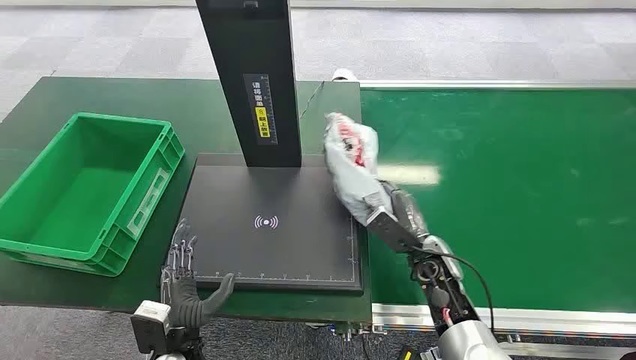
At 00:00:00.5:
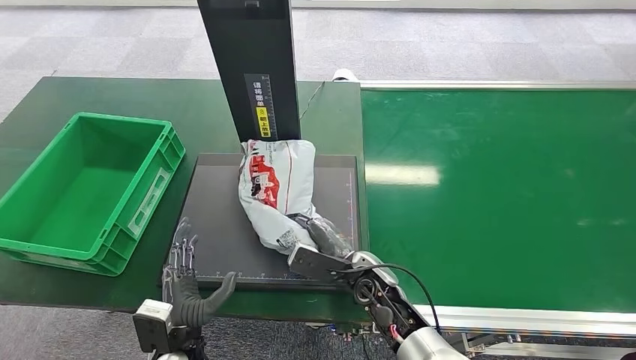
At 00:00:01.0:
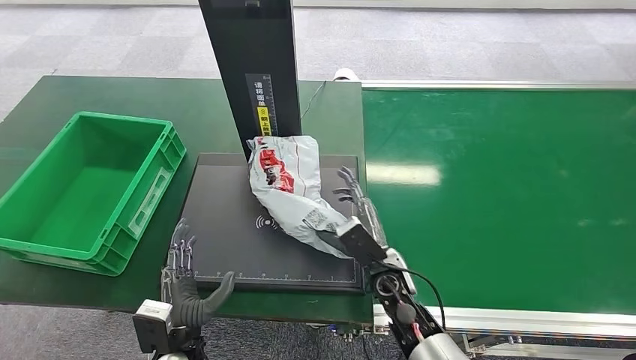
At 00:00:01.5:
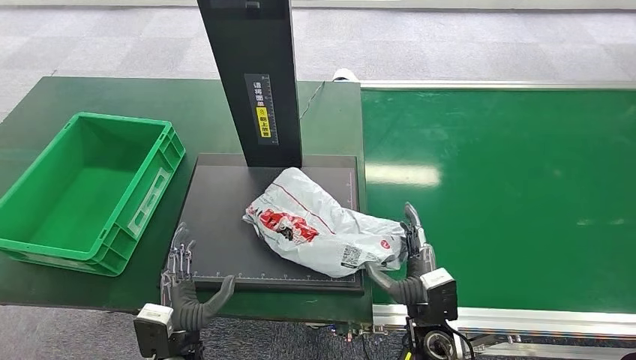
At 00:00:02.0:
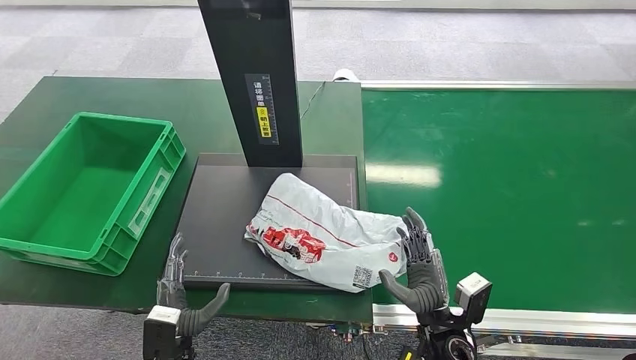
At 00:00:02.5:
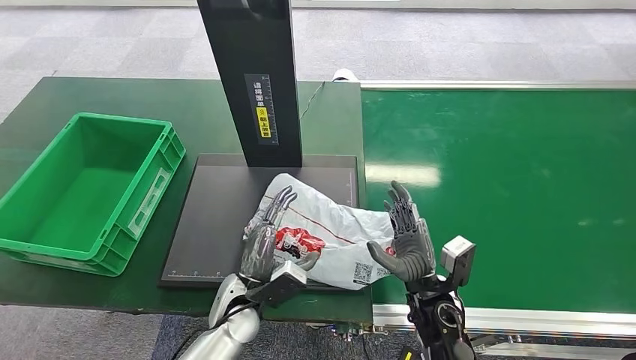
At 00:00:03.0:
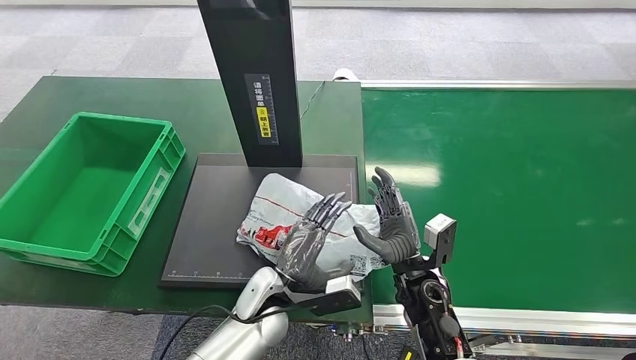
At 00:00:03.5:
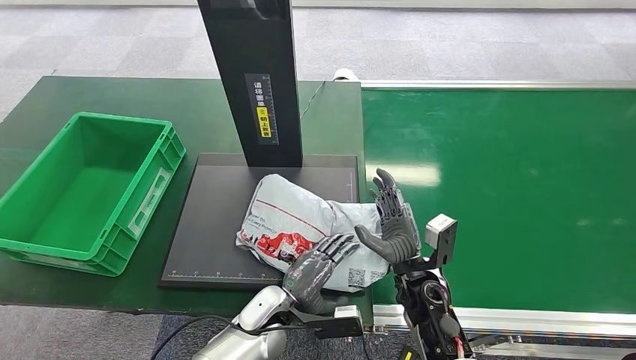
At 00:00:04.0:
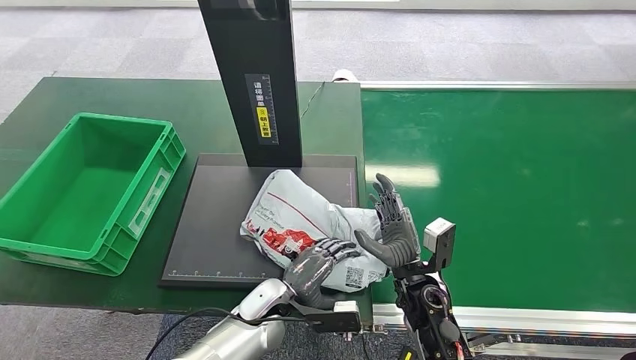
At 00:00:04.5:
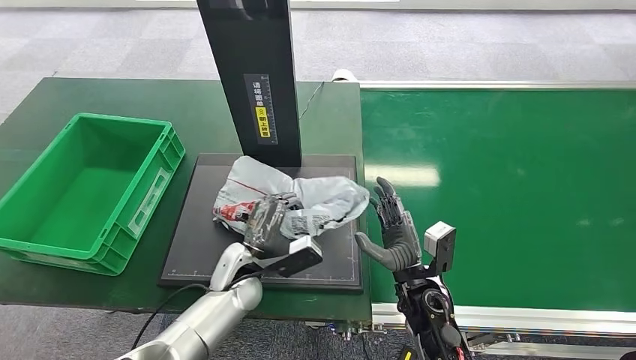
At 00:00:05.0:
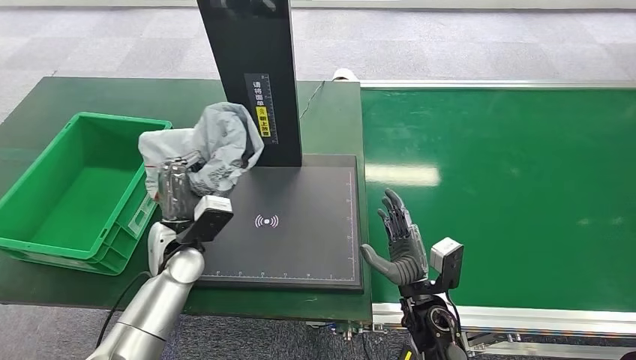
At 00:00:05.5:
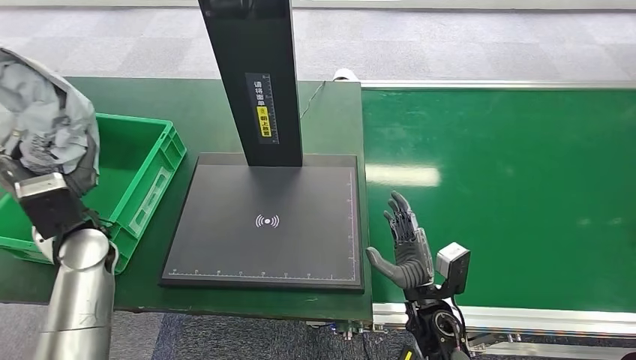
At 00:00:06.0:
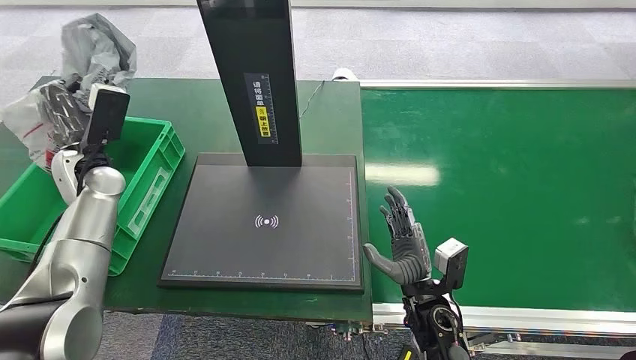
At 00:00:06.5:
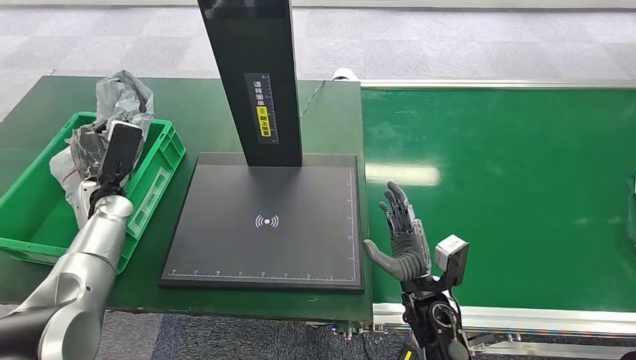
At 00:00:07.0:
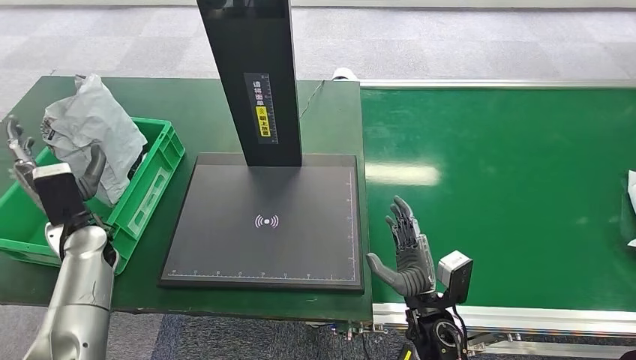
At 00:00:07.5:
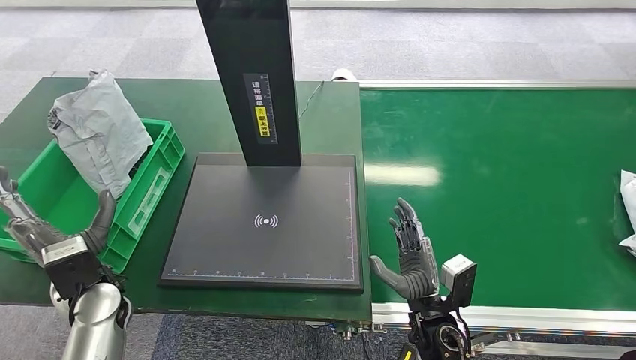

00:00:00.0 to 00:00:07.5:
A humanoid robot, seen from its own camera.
Task of the whole recording: Weigh the package on the weighing device and place it in the left basket.
00:00:02.0 to 00:00:04.0: The right hand heads forward, covering roughly 10 cm, while the left hand heads to the right and forward, covering roughly 15 cm.
00:00:04.0 to 00:00:05.5: The left hand travels to the left and upward by some 30 cm.
00:00:05.5 to 00:00:07.5: The left hand heads downward and backward, covering approximately 10 cm.

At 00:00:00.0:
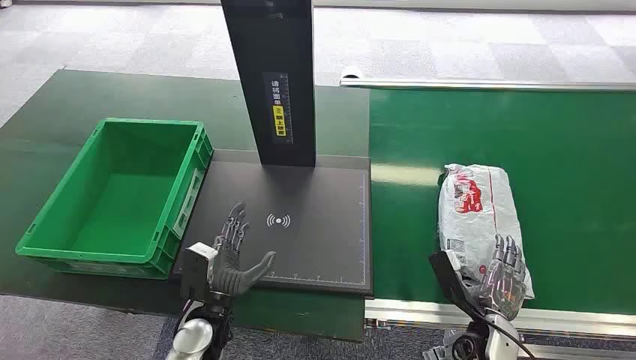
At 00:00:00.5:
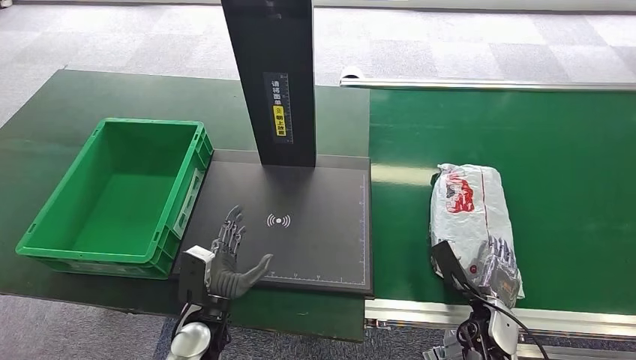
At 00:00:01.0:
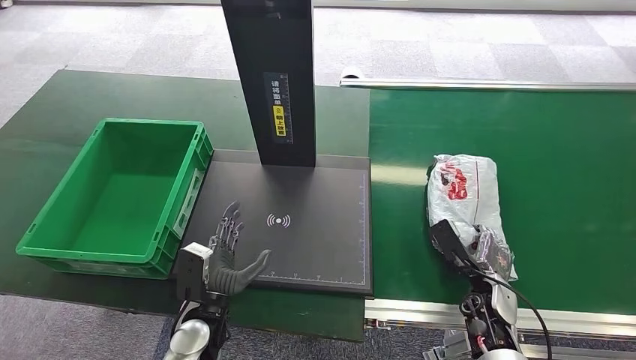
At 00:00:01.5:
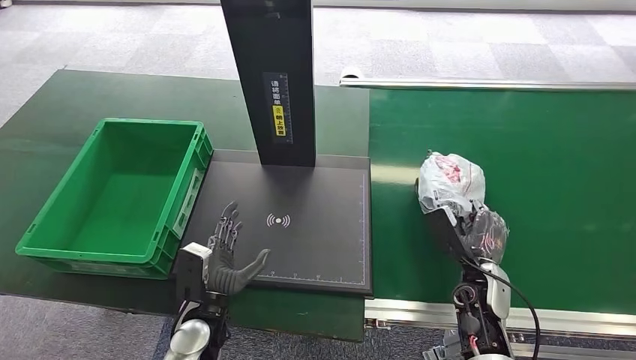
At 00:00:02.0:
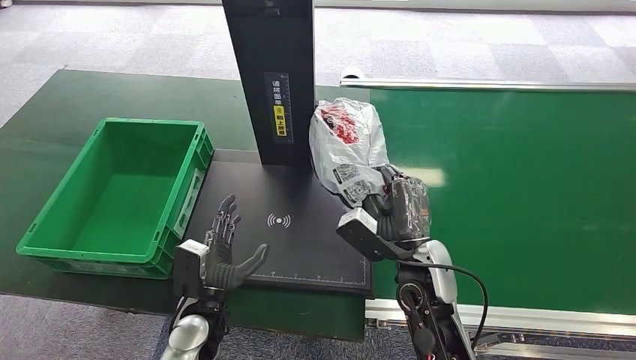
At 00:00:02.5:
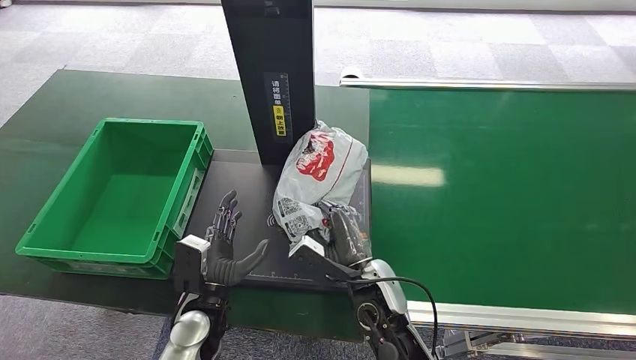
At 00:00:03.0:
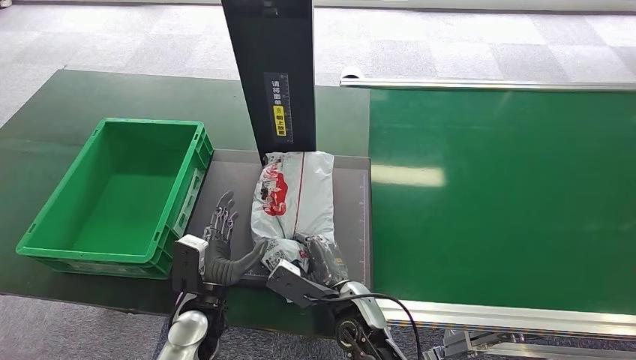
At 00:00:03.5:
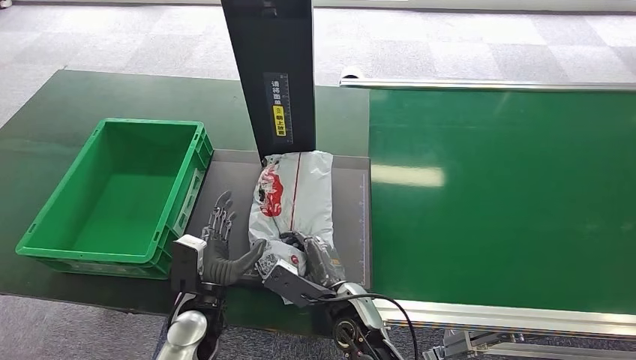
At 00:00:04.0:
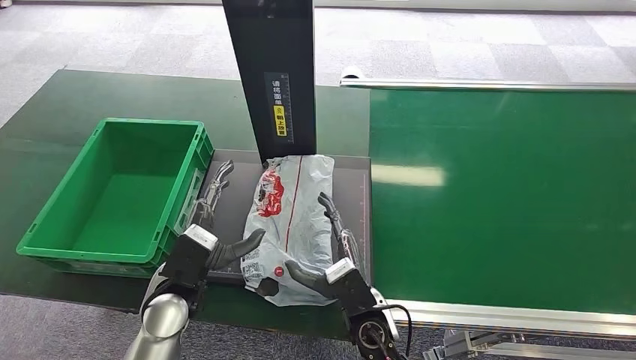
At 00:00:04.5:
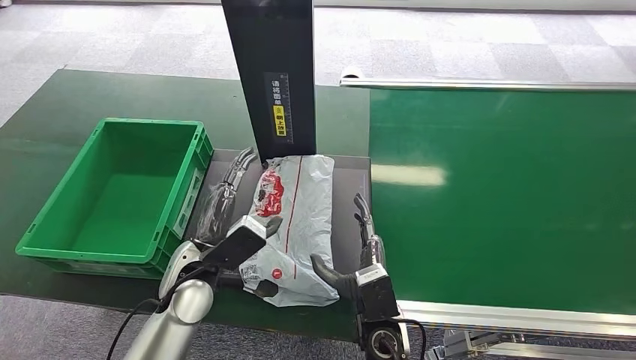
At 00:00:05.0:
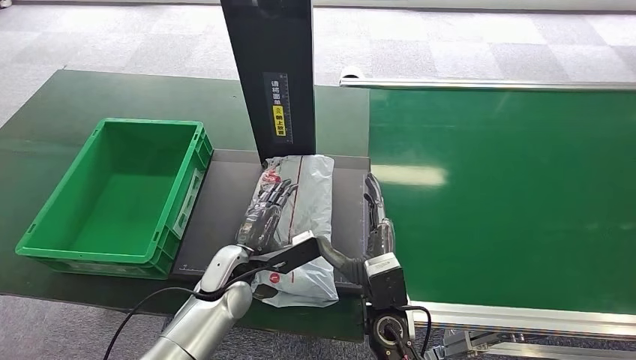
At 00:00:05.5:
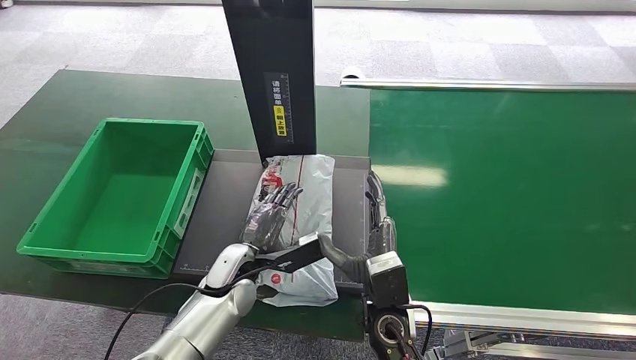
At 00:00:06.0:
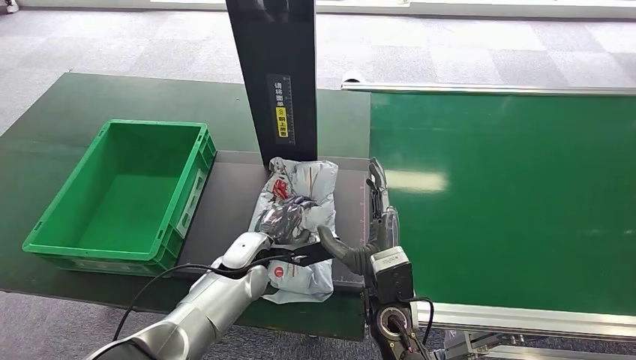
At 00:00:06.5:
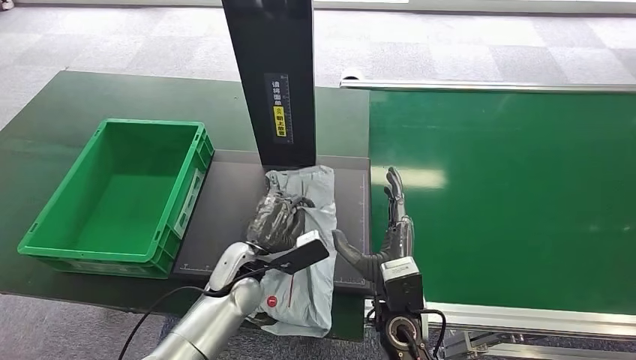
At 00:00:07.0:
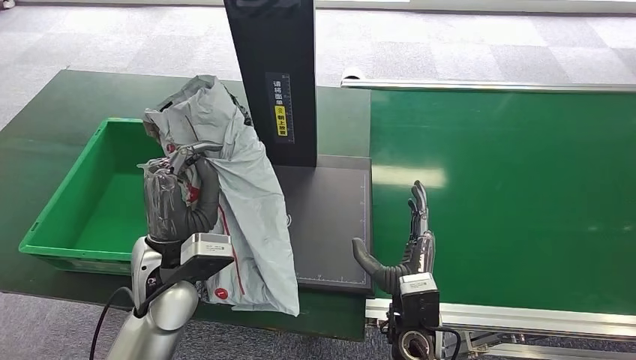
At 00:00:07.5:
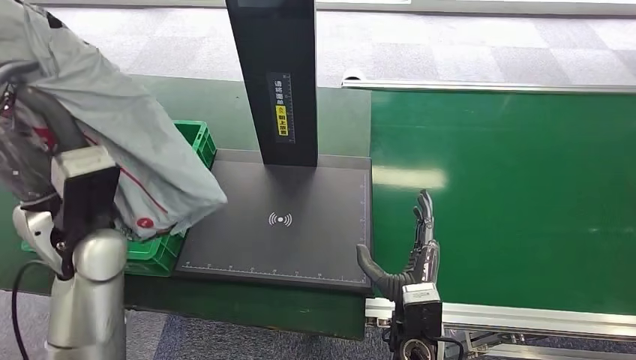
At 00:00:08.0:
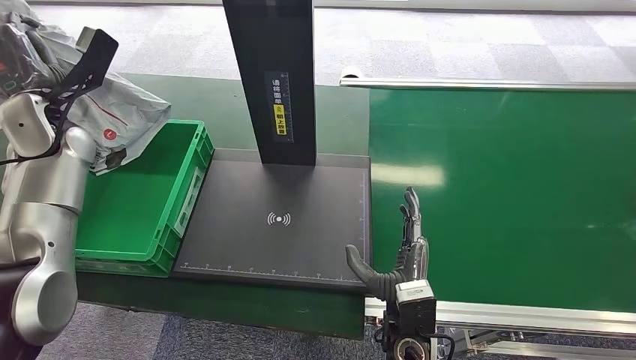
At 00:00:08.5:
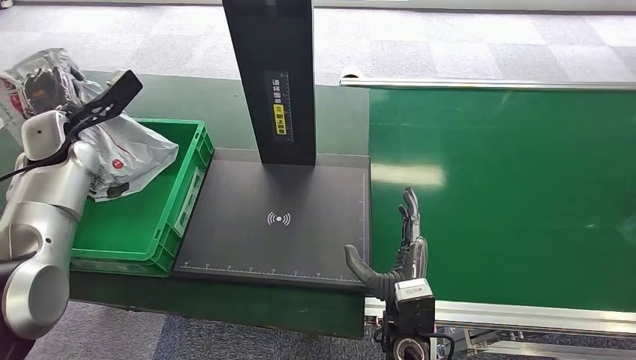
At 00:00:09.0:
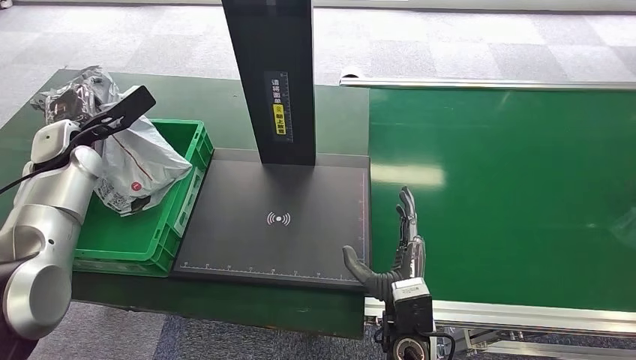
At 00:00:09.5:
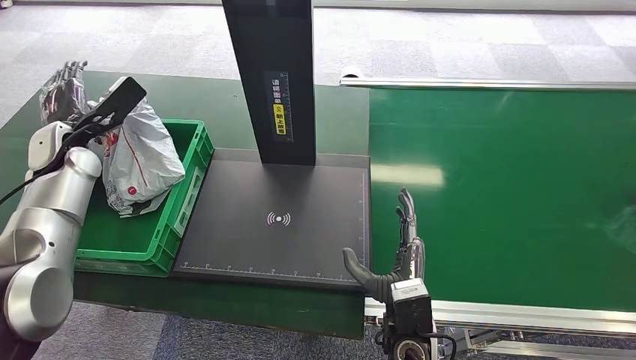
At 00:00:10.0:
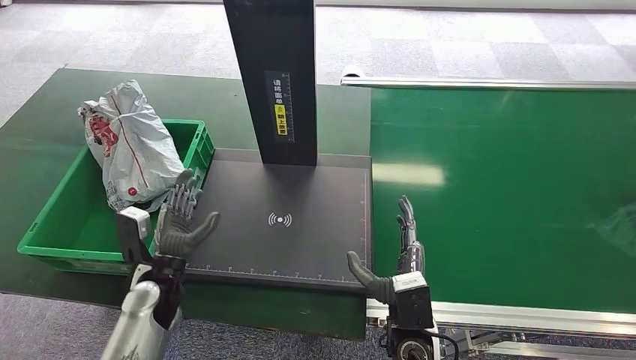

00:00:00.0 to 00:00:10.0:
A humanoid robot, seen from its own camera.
Task of the whole recording: Weigh the package on the weighing device and place it in the left basket.
Step, 00:00:00.0 to 00:00:01.5: Pick up the package from the conveyor belt.
Step, 00:00:02.5 to 00:00:05.0: Place the package onto the inbound machine.
Step, 00:00:05.5 to 00:00:07.0: Pick up the package from the inbound machine.
Step, 00:00:07.5 to 00:00:10.0: Place the package into the parcel locker.
00:00:02.0 to 00:00:04.0: The right hand heads downward, to the left and backward, covering some 15 cm. Meanwhile the left hand goes approximately 5 cm upward.
